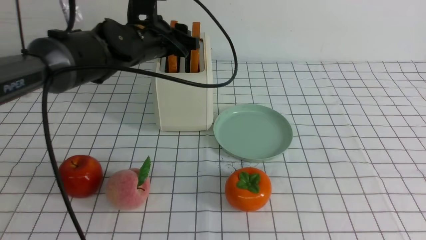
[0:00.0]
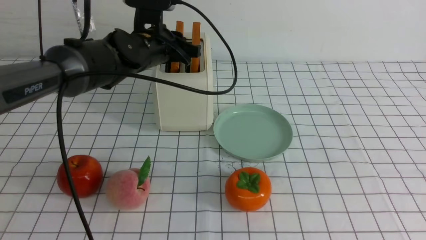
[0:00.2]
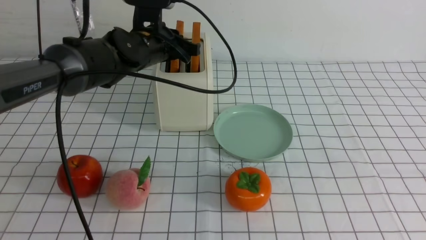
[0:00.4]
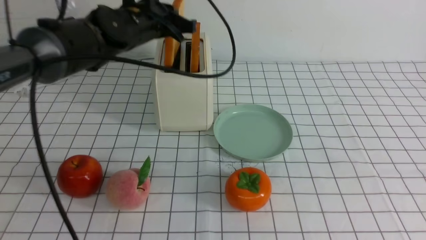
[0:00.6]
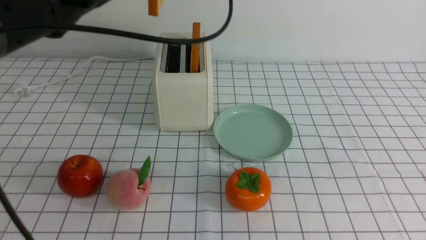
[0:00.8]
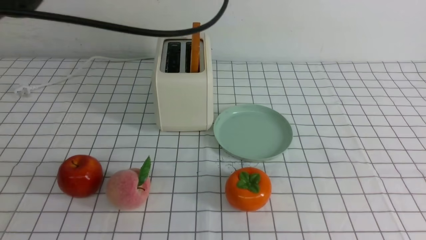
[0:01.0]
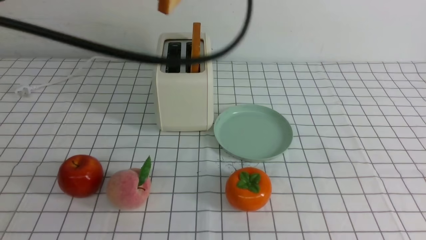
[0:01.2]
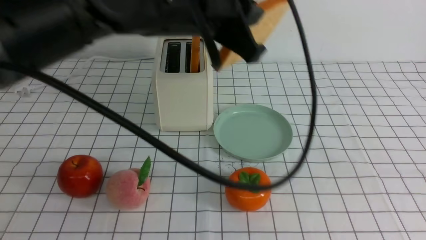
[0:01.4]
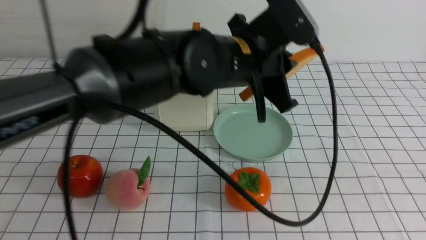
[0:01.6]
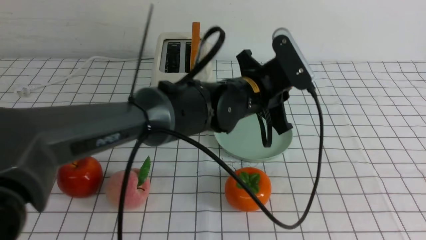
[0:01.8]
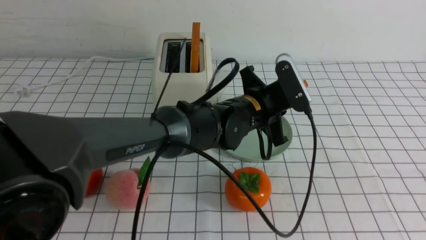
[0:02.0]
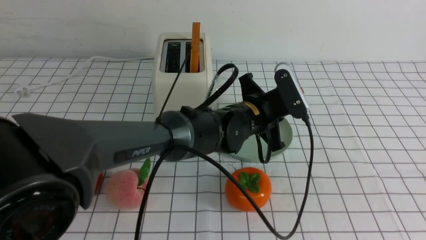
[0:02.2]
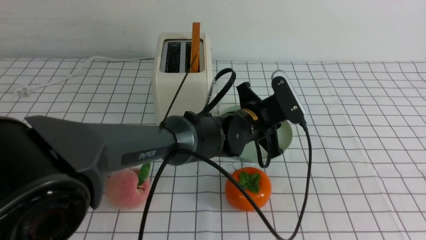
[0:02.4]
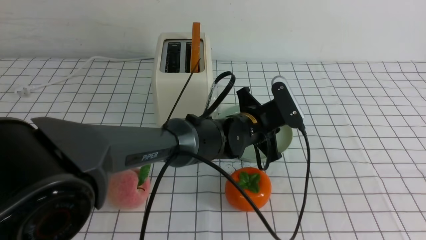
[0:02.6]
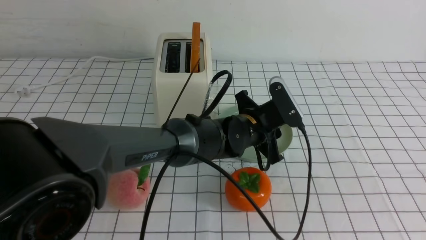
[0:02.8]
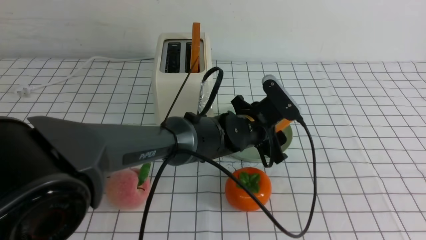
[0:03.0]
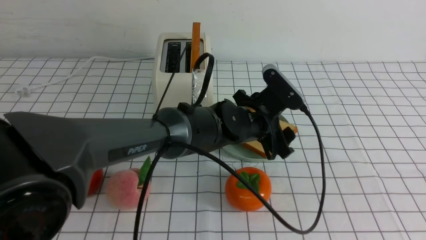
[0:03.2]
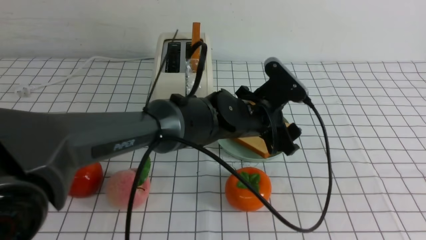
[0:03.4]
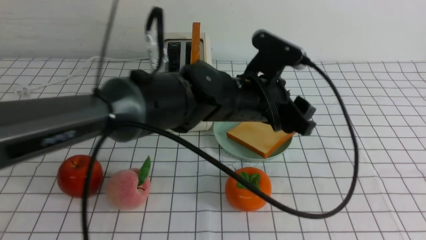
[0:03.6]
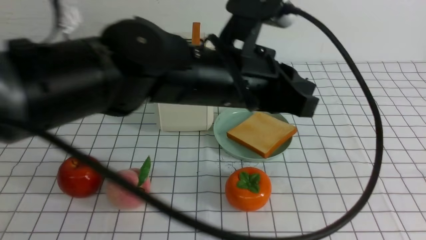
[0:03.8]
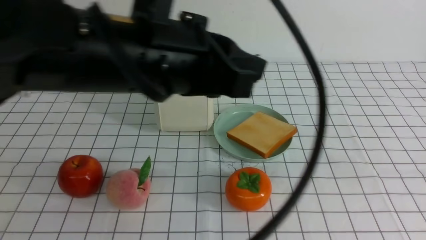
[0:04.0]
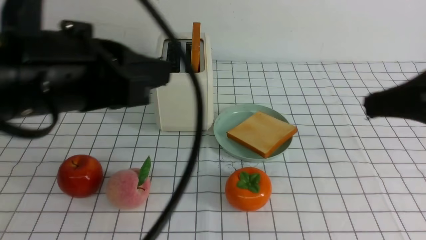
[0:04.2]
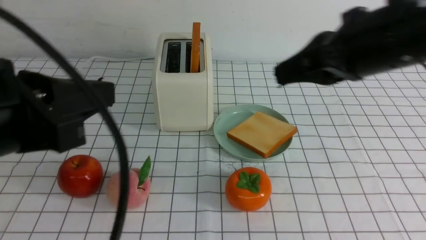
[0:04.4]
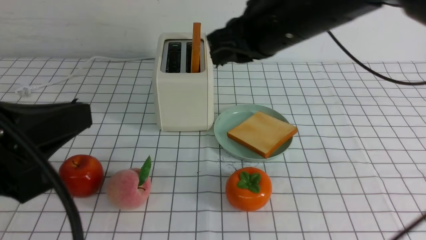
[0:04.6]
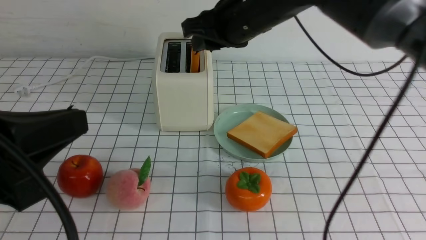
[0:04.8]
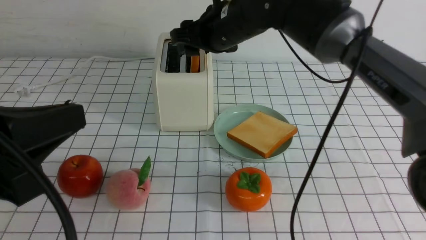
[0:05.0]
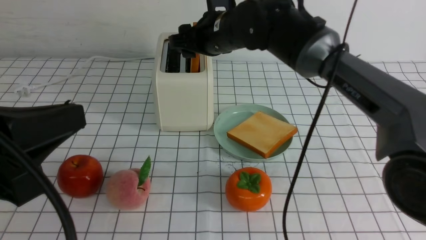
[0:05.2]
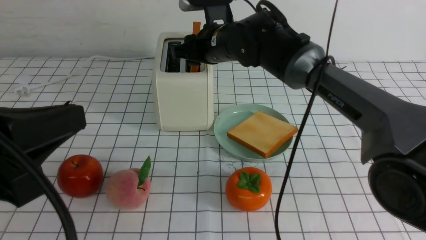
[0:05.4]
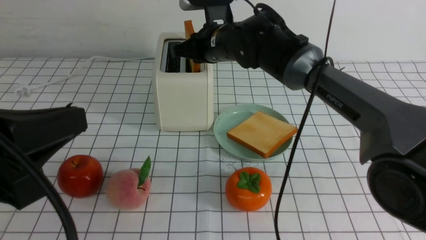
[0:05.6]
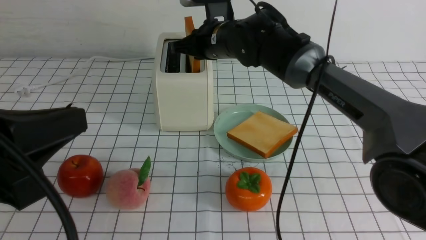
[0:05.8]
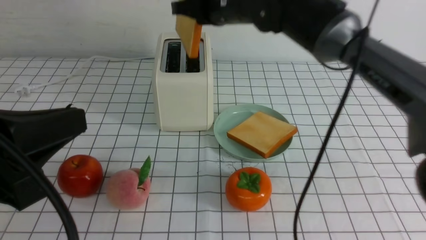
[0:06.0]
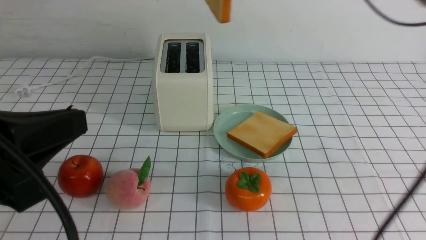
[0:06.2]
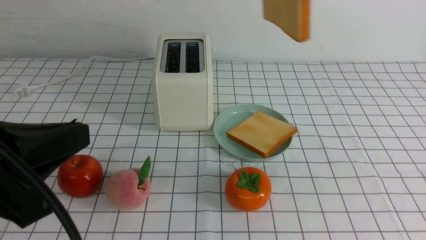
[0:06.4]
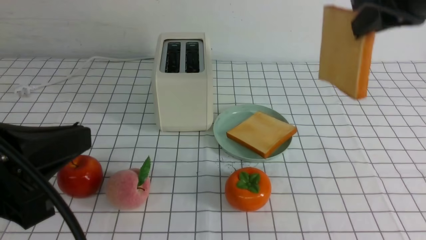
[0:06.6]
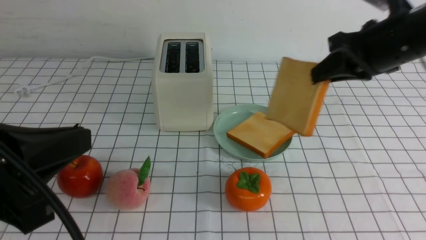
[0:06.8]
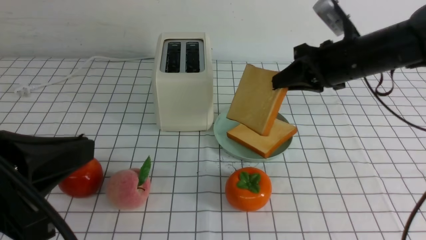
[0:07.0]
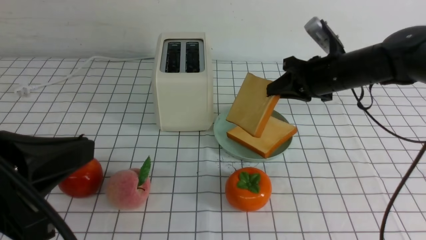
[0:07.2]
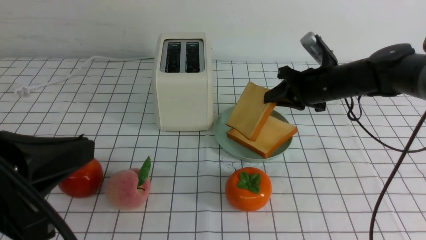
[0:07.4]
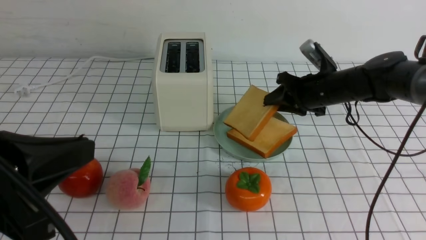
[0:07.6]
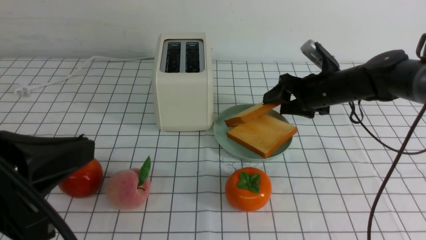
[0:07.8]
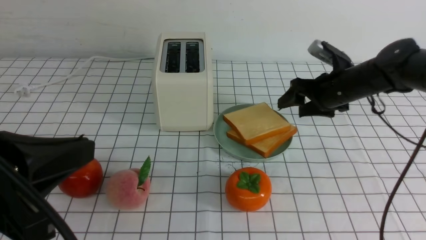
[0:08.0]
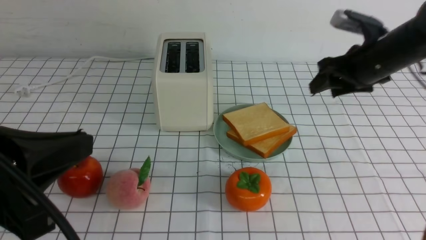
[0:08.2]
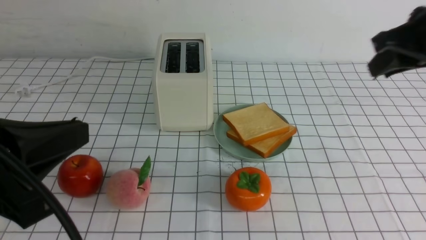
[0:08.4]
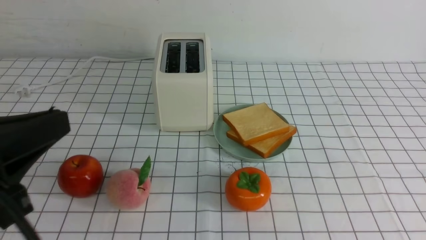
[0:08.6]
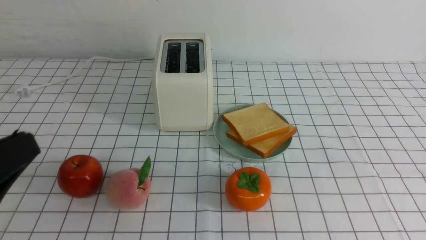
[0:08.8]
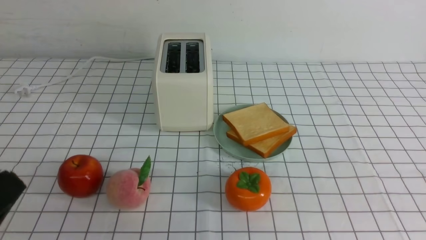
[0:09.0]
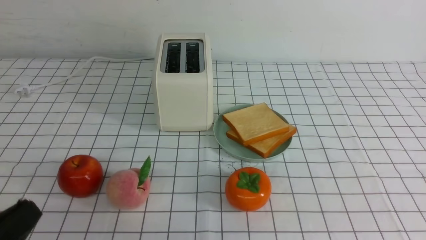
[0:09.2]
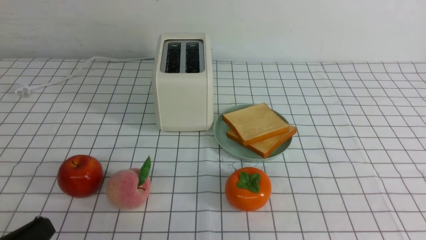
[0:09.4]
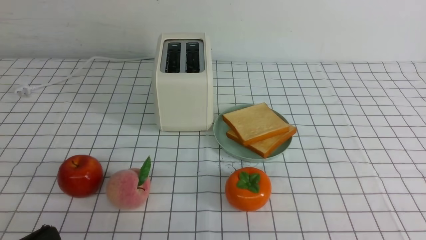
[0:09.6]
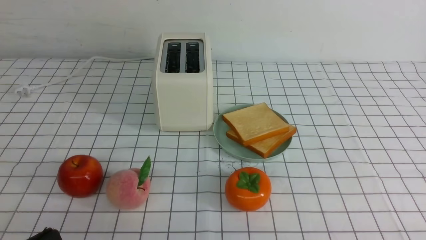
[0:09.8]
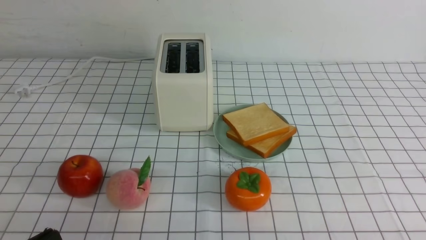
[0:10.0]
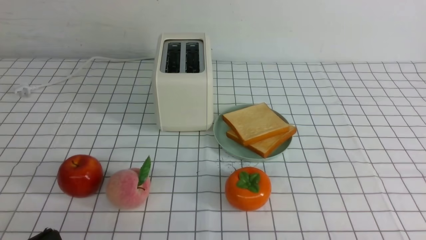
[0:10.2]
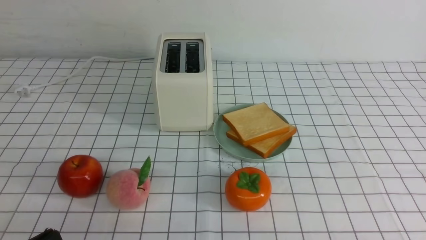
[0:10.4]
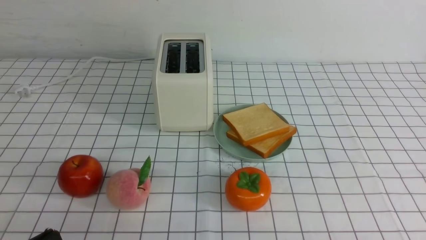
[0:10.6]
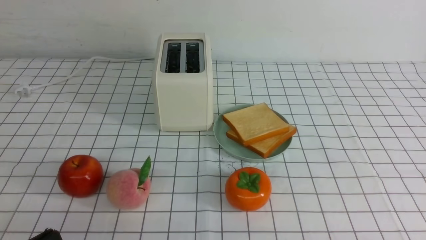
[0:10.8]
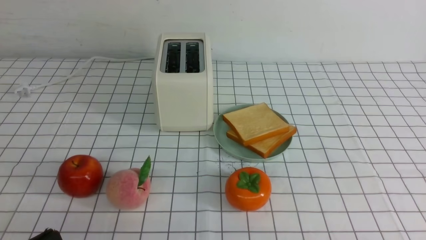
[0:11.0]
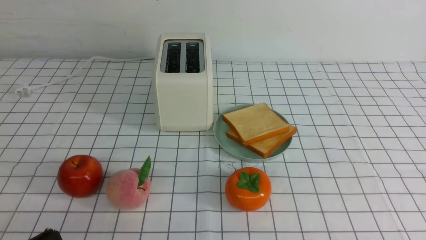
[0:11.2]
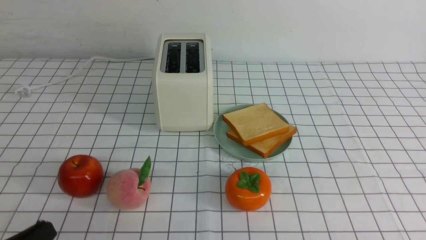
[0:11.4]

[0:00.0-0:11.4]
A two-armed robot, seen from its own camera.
Task of the whole recording: take toasted bread from bread machine on white checkered table place on plate.
Step, 0:00.8 to 0:03.6: use the left arm to put a slice of bread into the empty plate.
Step, 0:03.8 to 0:05.8: use the right arm to take out a slice of bread.
Step, 0:06.0 to 0:07.8: use the right arm to put a slice of bread into the plate.
0:00.0 to 0:01.4: The left gripper shifts about 15 cm backward, upward and to the right, and closes.
0:01.4 to 0:02.8: The left gripper is displaced downward and to the right by approximately 20 cm, and opens its fingers.
0:02.8 to 0:04.2: The left gripper travels upward, to the left and backward by about 35 cm, and closes. The right gripper shifts some 15 cm forward.
0:04.2 to 0:05.6: The left gripper travels backward and to the left by about 10 cm; the right gripper shifts some 35 cm forward, to the left and downward, and opens, then closes again.
0:05.6 to 0:07.2: The right gripper moves to the right, about 20 cm, and reaches approximately 15 cm upward, then returns.
0:07.2 to 0:08.6: The right gripper is displaced backward and upward by roughly 30 cm, and opens and closes again.
0:08.6 to 0:10.0: The left gripper travels downward by some 15 cm.

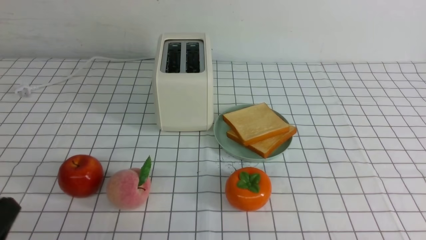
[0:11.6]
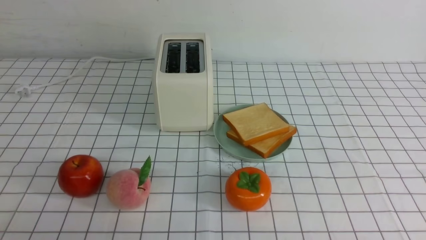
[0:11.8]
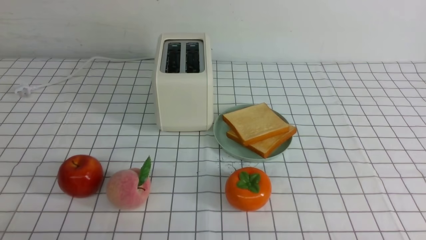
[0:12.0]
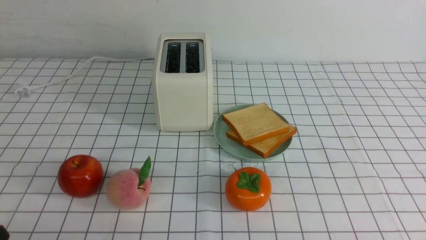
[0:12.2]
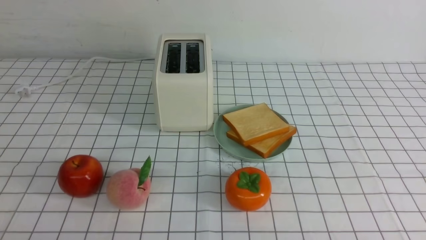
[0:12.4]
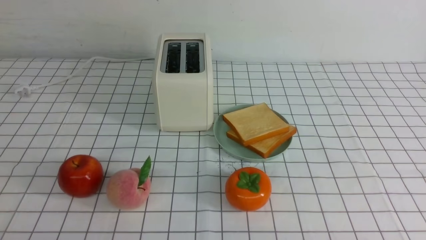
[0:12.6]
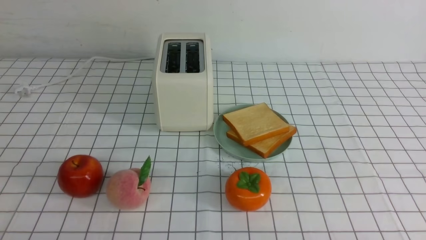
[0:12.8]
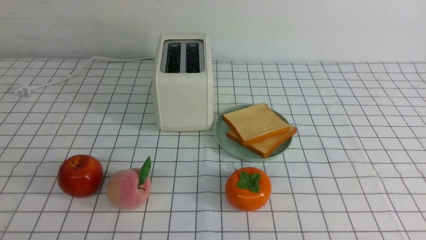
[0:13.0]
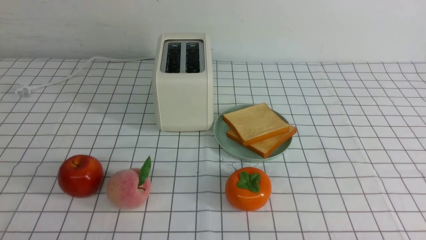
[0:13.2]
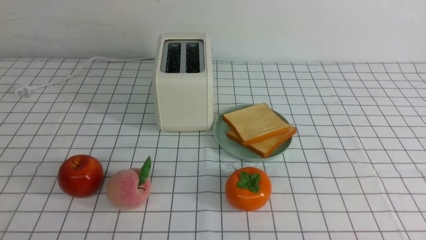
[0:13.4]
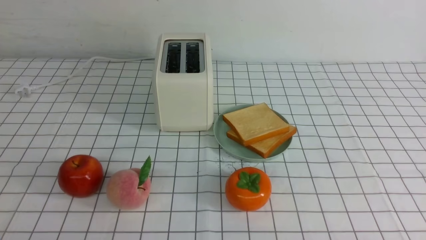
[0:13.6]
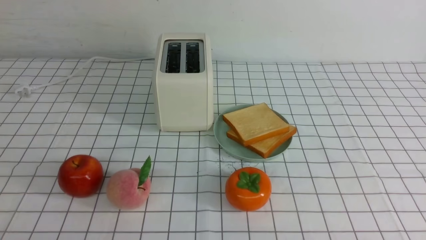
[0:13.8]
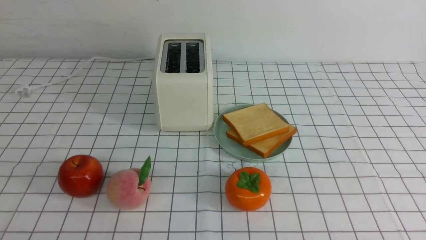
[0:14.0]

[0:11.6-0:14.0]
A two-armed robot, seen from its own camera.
Task of the whole recording: take toasted bread from bread machine on white checkered table place on plate.
0:12.8 to 0:14.0: Both grippers stay put.
